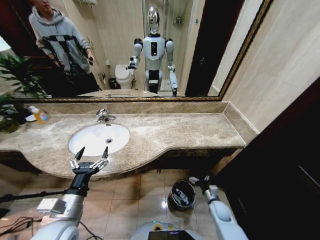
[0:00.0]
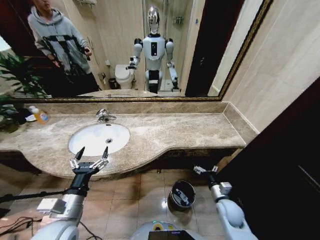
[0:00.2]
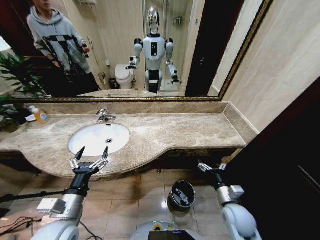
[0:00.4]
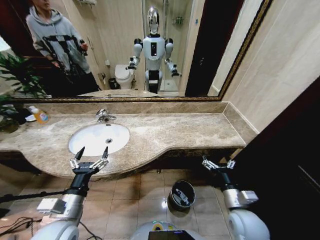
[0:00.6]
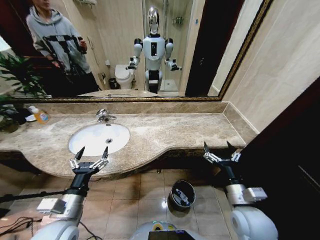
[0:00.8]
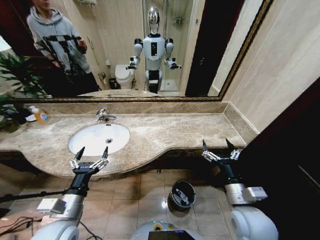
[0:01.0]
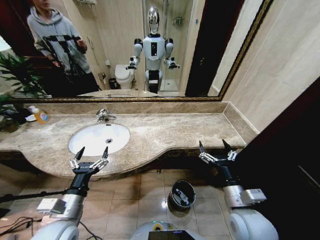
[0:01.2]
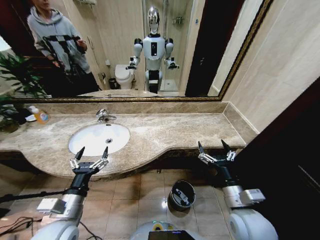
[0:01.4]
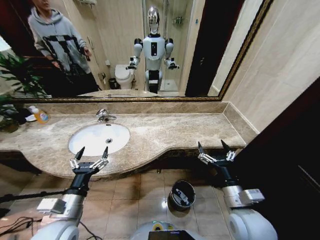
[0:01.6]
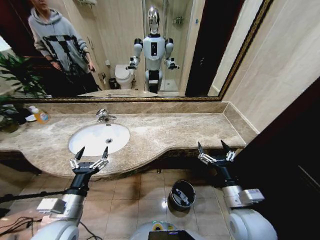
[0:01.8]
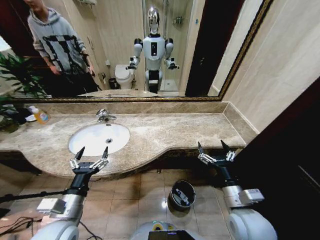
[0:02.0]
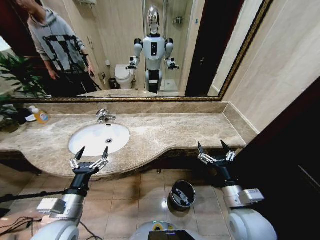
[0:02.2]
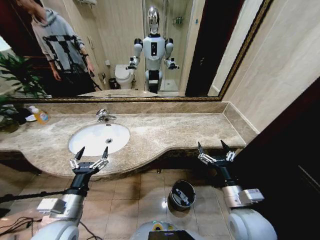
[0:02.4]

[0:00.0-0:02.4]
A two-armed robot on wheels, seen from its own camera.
Task of the whole recording: Pick up the trash from the sink and place it in the trash bin.
0:00.0 to 0:01.2: The right gripper goes roughly 25 cm upward.
0:01.2 to 0:02.4: Neither gripper changes place.

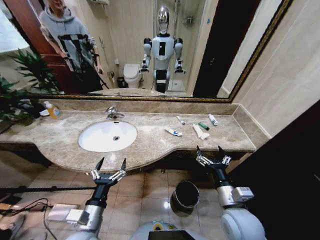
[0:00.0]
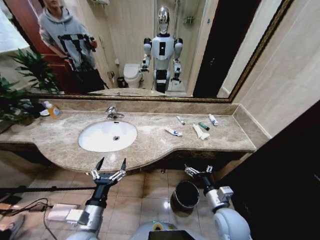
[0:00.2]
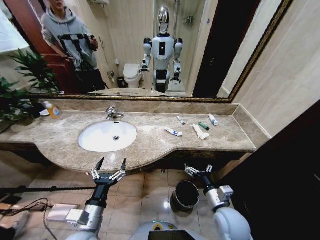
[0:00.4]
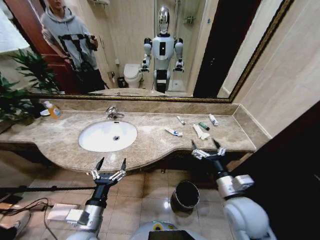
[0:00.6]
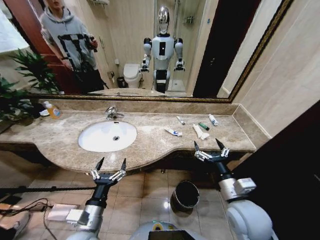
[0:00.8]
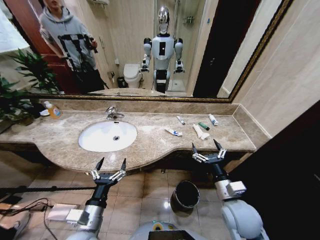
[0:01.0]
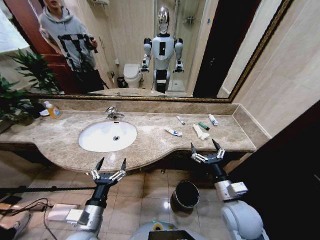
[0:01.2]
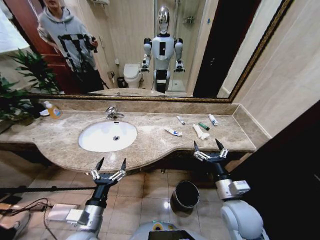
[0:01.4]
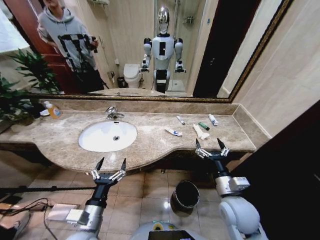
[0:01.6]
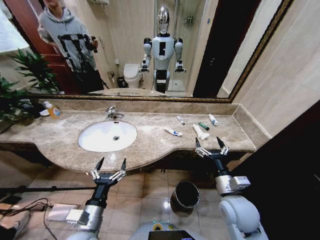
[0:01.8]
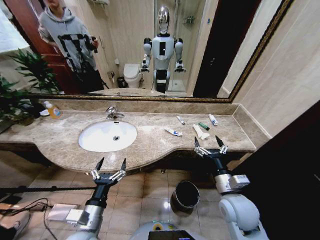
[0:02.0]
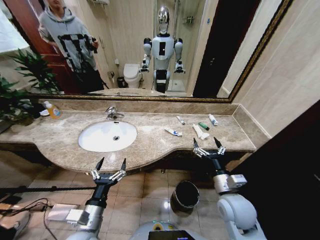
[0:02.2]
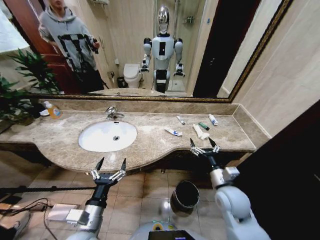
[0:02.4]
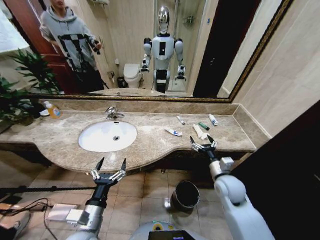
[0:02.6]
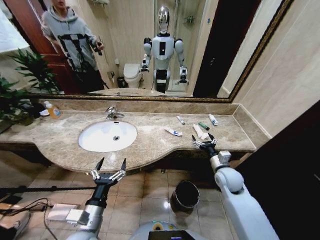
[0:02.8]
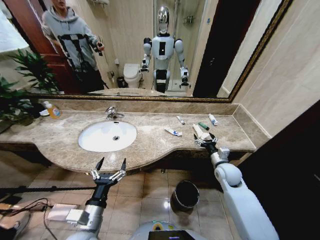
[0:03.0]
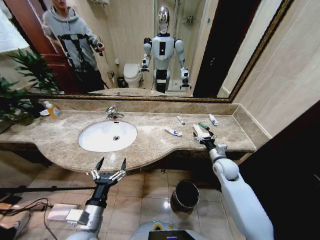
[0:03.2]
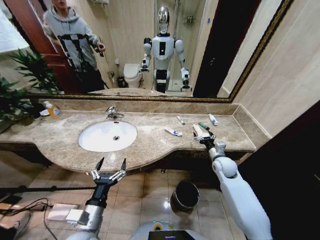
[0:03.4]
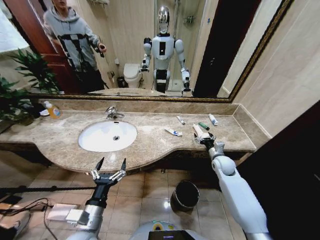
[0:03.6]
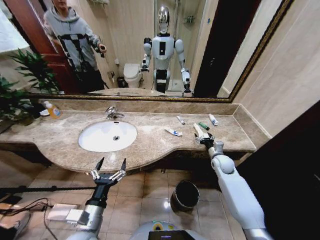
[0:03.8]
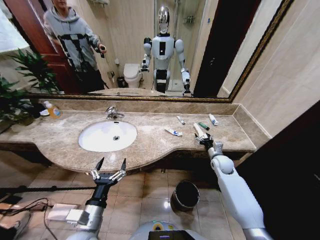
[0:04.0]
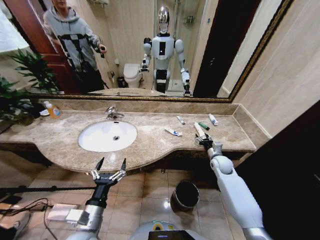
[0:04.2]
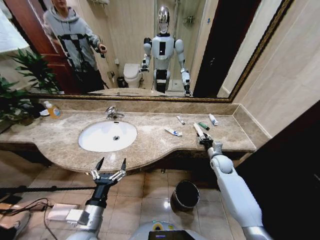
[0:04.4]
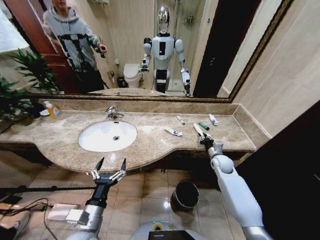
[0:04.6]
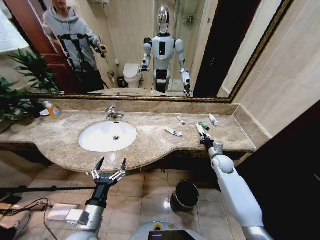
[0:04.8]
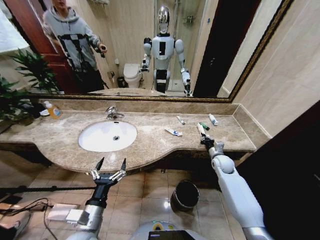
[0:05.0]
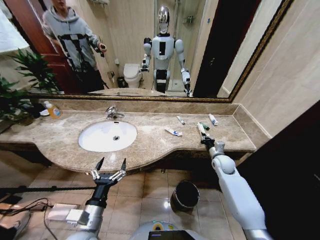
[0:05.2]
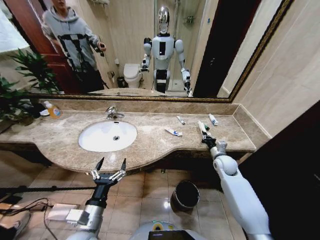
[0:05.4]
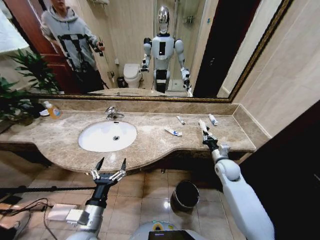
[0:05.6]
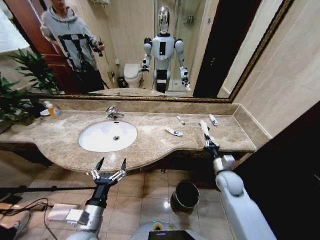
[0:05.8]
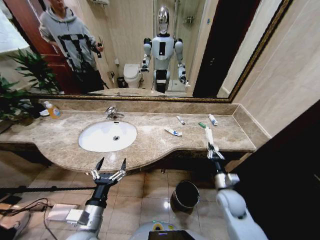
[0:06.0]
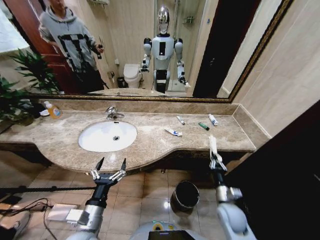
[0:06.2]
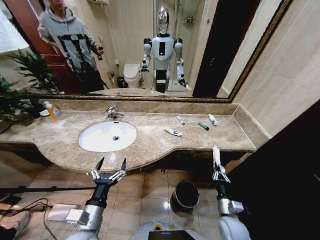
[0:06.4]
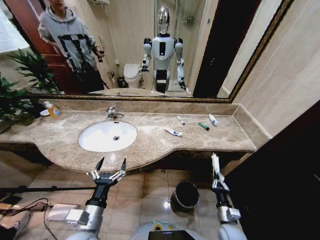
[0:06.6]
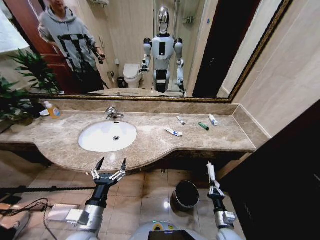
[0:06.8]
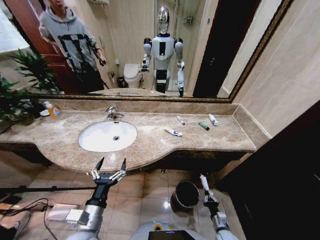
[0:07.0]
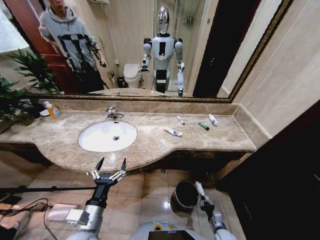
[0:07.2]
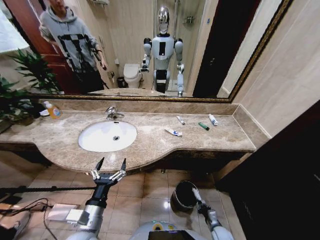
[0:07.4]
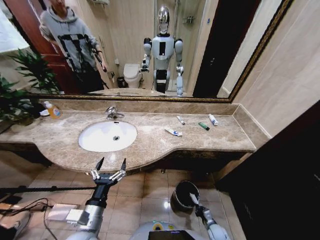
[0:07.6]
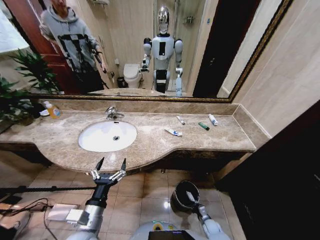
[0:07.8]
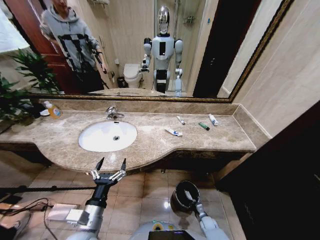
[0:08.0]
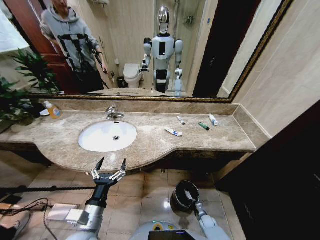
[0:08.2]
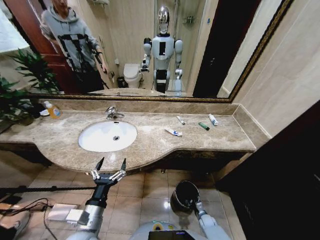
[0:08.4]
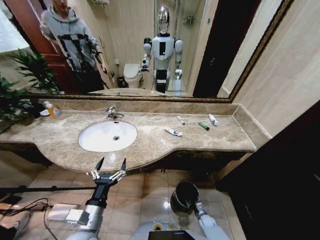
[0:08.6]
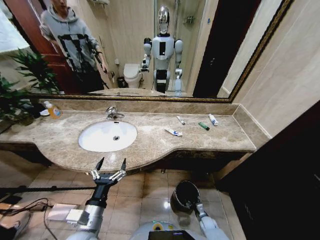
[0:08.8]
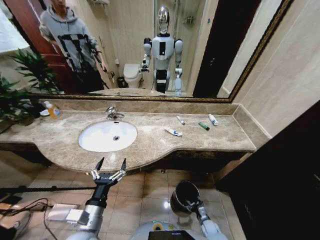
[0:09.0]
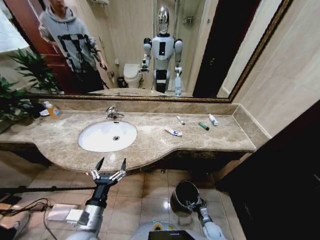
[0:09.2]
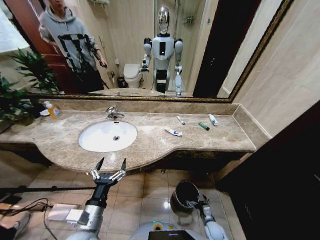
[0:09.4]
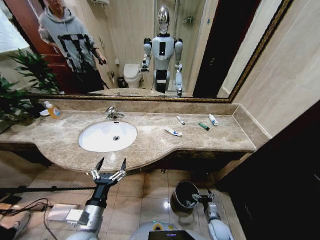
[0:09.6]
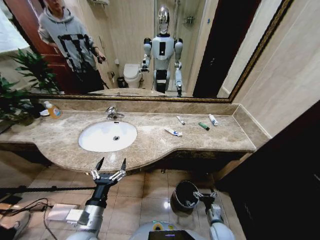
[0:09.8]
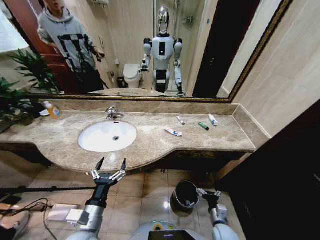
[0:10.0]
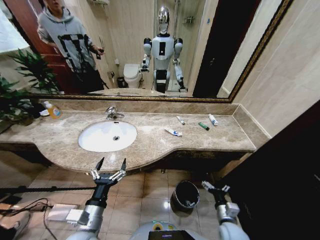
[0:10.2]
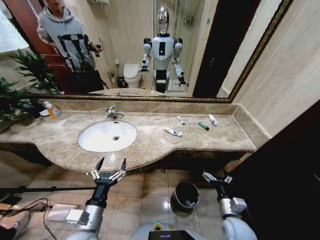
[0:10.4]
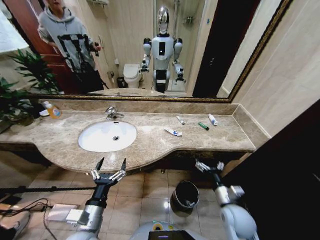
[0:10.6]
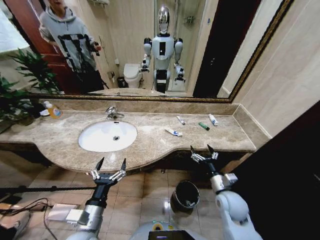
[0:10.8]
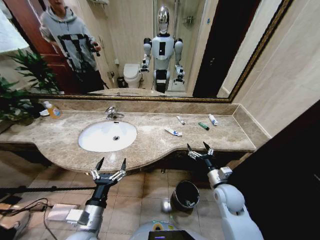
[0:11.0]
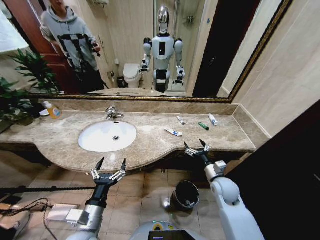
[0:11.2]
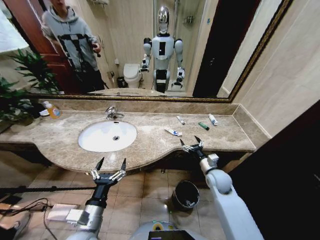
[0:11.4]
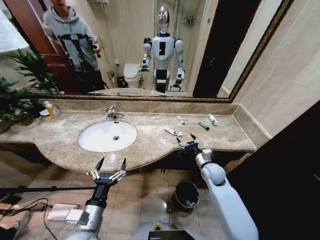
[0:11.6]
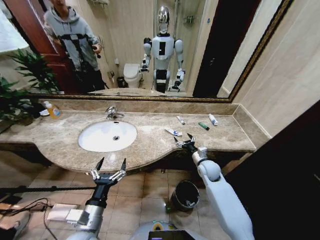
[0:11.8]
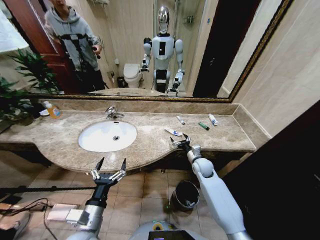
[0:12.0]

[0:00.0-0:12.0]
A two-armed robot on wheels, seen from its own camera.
Task of the whole recording: Pick up the trash from the sink and place it in the trash bin.
0:01.6 to 0:03.0: The right gripper is displaced forward and to the right by some 15 cm.
0:03.0 to 0:04.4: The right gripper goes about 5 cm forward, and closes its fingers.
0:04.4 to 0:06.0: The right gripper travels backward by roughly 15 cm, and closes up.
0:06.0 to 0:07.6: The right gripper is displaced downward by approximately 30 cm.
0:07.6 to 0:09.0: The right gripper opens its fingers.
0:09.0 to 0:10.4: The right gripper moves upward, roughly 30 cm.
0:10.4 to 0:12.0: The right gripper heads forward, covering approximately 25 cm.

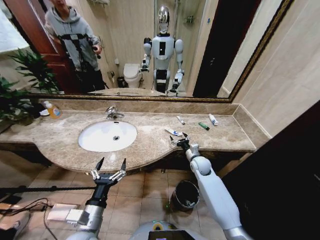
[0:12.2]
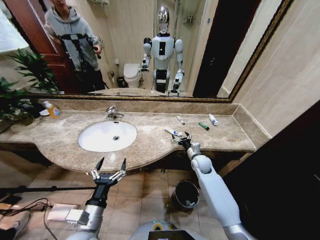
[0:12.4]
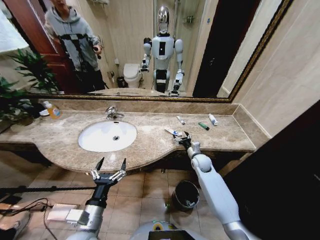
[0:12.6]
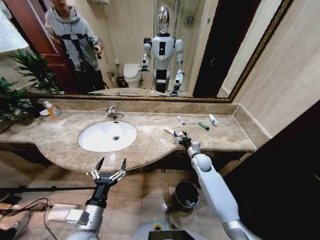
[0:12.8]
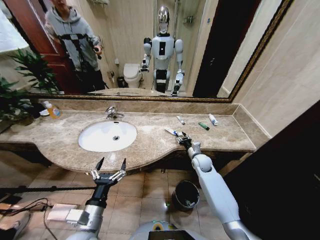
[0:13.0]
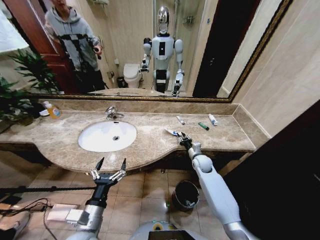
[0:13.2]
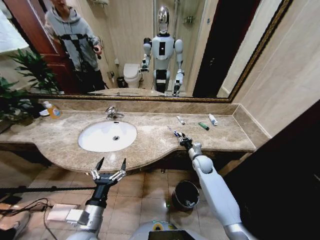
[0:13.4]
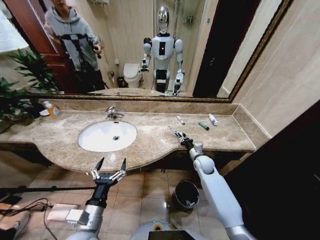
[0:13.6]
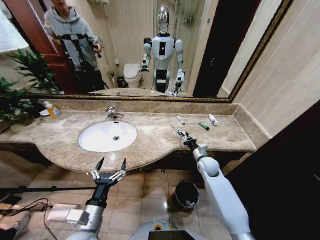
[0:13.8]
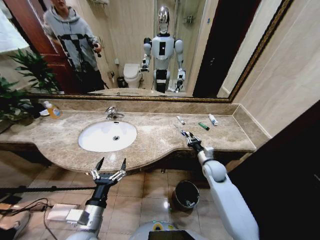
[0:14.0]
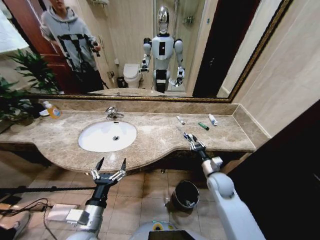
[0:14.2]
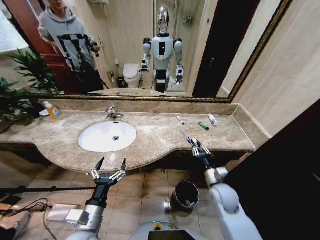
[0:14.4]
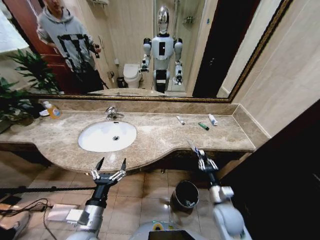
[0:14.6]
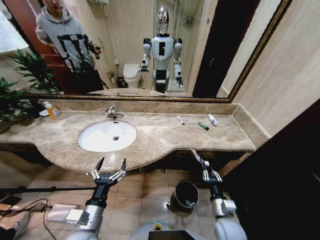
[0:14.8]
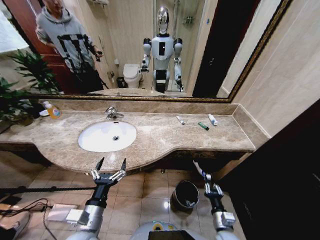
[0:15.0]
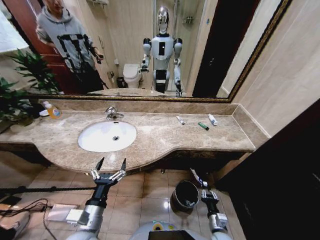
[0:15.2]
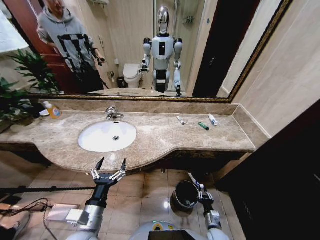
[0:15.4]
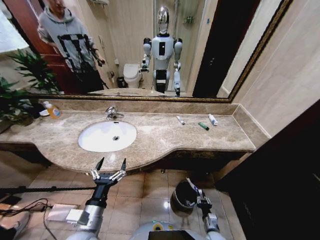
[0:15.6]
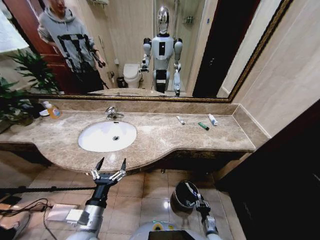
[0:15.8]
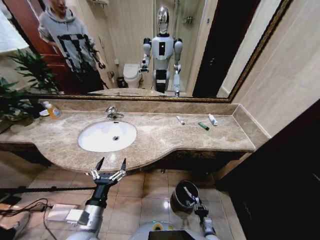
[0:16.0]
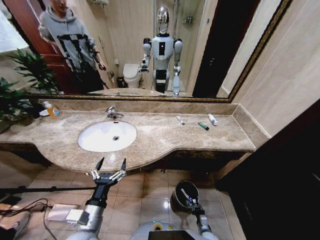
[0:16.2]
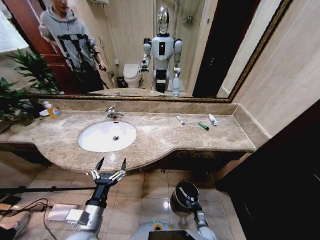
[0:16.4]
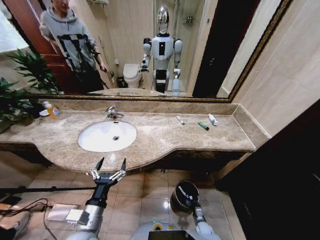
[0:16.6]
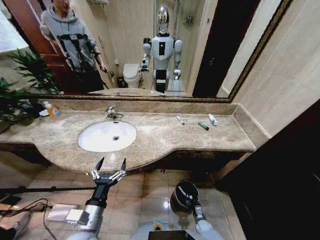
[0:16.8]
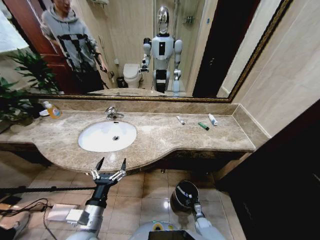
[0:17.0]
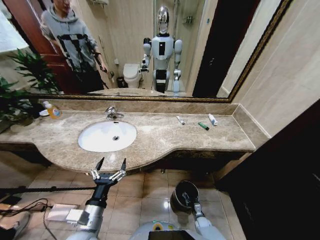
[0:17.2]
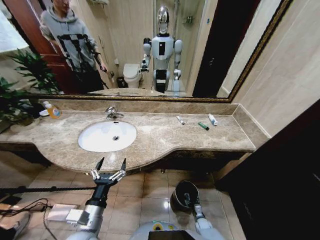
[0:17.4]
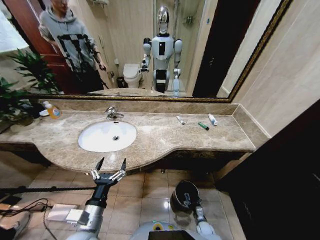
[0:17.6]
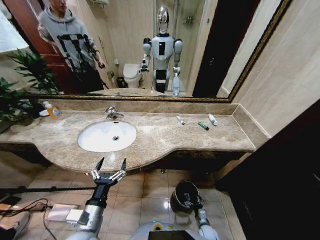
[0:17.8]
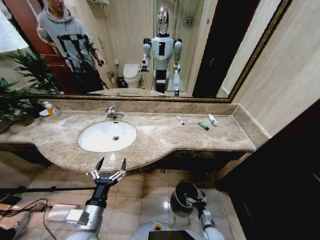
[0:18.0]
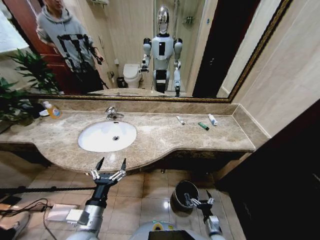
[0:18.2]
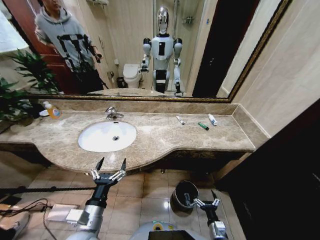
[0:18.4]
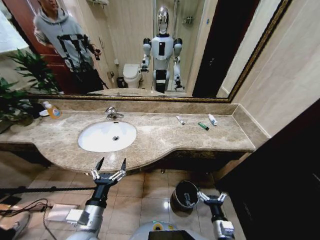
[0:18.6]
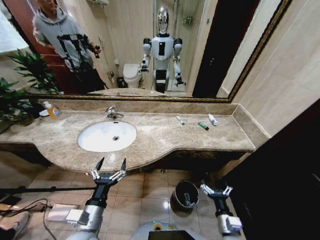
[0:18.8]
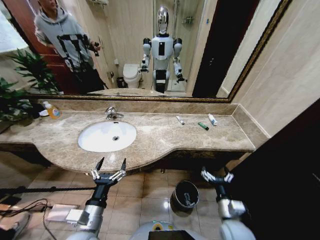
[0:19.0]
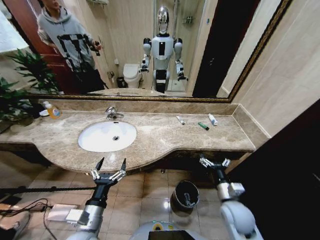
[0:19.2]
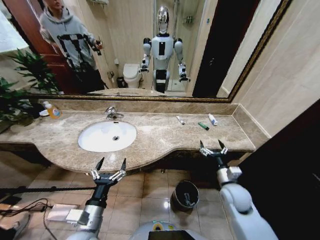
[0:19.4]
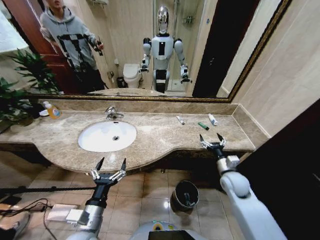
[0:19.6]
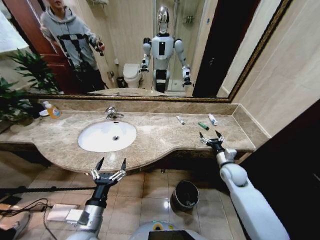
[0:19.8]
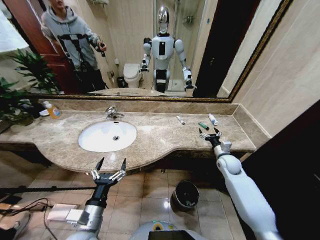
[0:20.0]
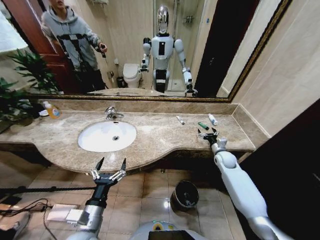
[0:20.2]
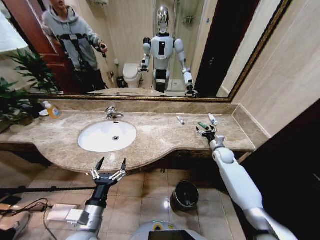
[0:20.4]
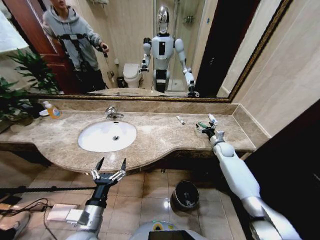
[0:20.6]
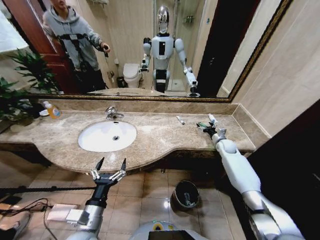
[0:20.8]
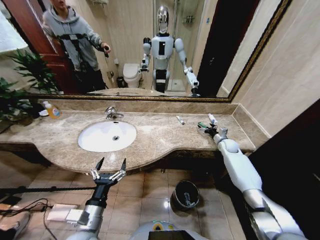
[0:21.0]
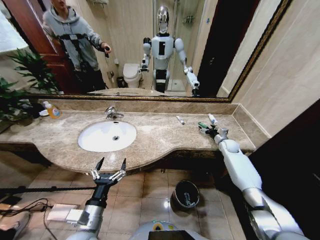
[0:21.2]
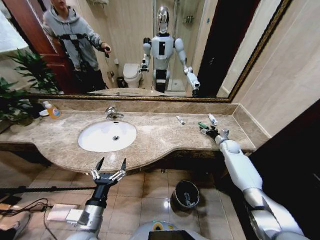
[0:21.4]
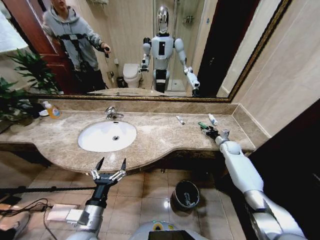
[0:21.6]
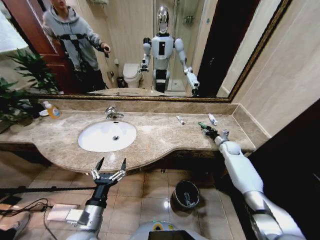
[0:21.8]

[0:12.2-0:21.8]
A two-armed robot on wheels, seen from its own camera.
Task of the whole recording: Pick up the trash from the sink and place it in the trash bin.
0:12.2 to 0:13.8: The right gripper closes up.
0:13.8 to 0:15.4: The right gripper heads backward and downward, covering approximately 35 cm.
0:15.4 to 0:17.0: The right gripper moves downward and forward, approximately 15 cm.
0:17.0 to 0:18.6: The right gripper moves upward and backward, about 30 cm, and opens up.
0:18.6 to 0:20.2: The right gripper travels forward by roughly 35 cm.
0:20.2 to 0:21.8: The right gripper moves forward and to the right, approximately 10 cm, and closes up.